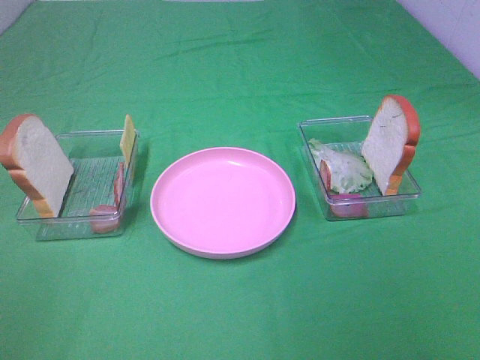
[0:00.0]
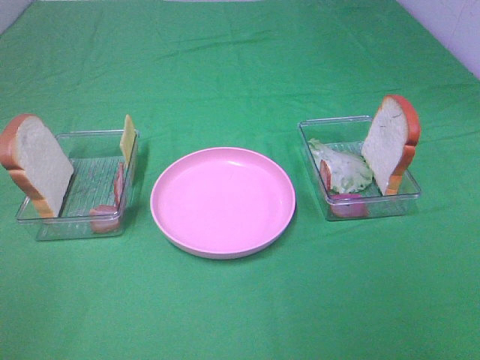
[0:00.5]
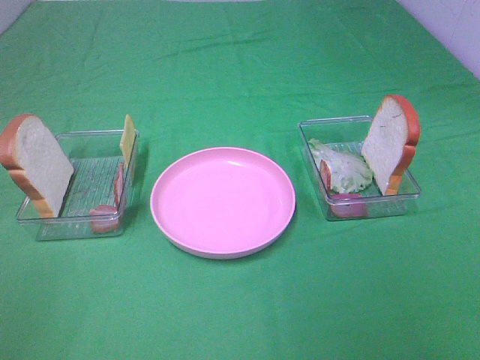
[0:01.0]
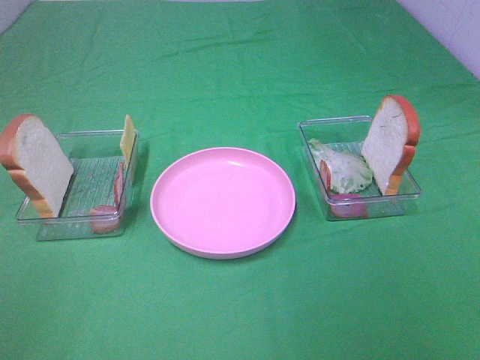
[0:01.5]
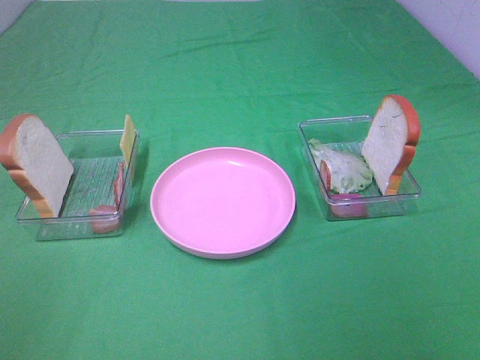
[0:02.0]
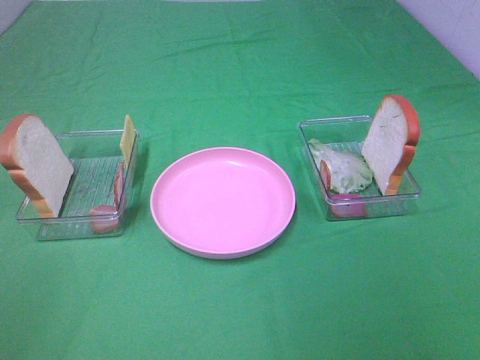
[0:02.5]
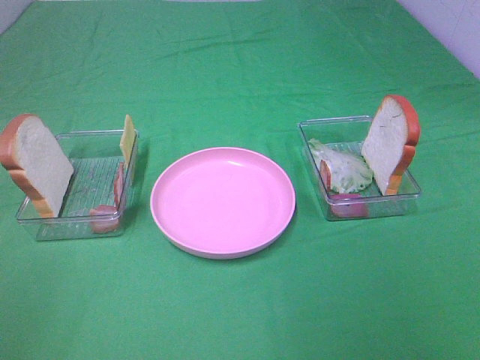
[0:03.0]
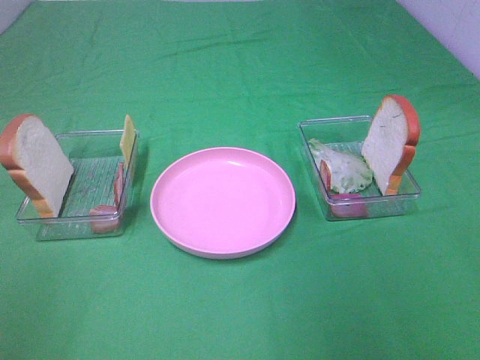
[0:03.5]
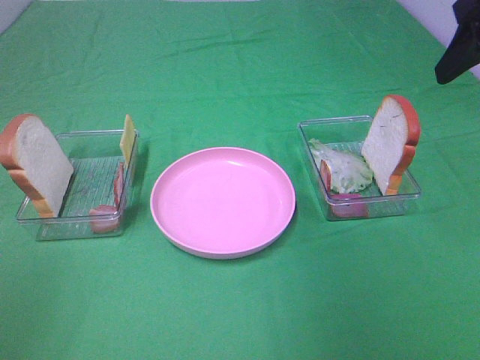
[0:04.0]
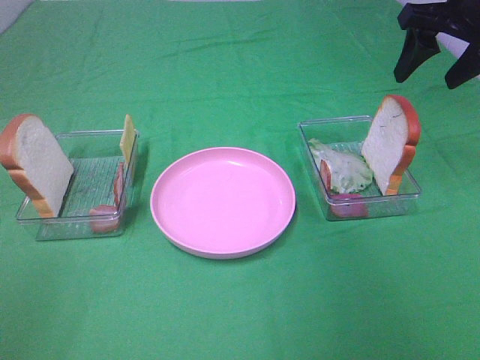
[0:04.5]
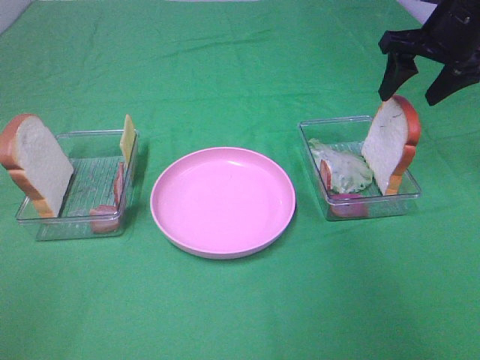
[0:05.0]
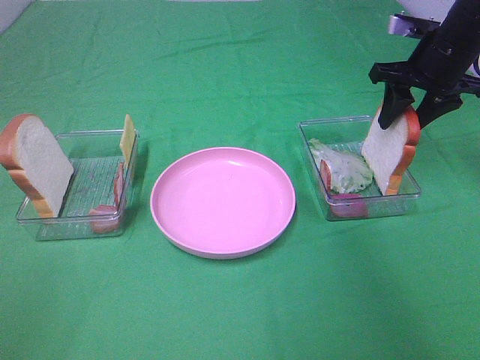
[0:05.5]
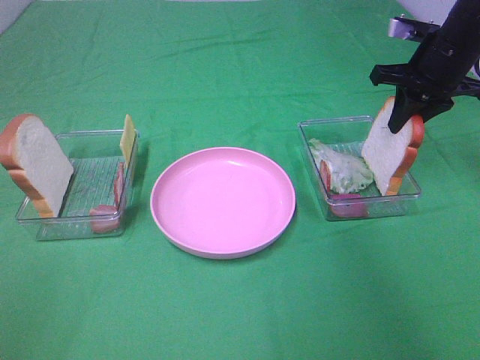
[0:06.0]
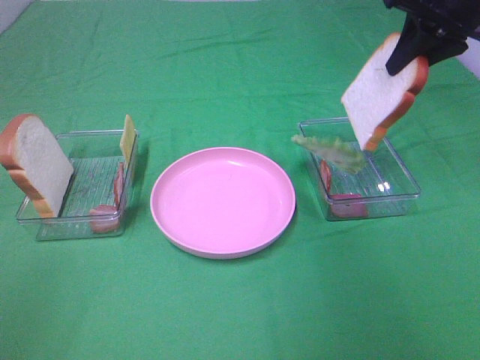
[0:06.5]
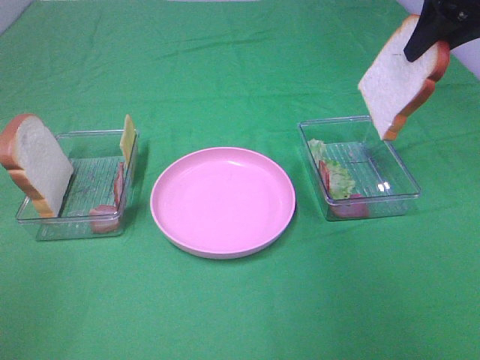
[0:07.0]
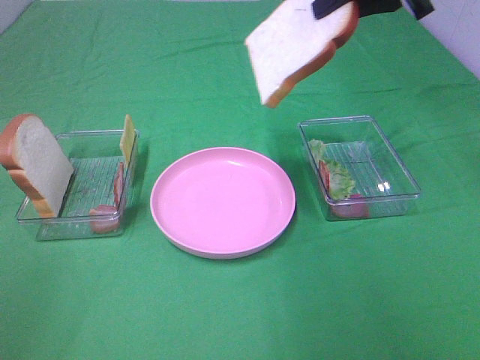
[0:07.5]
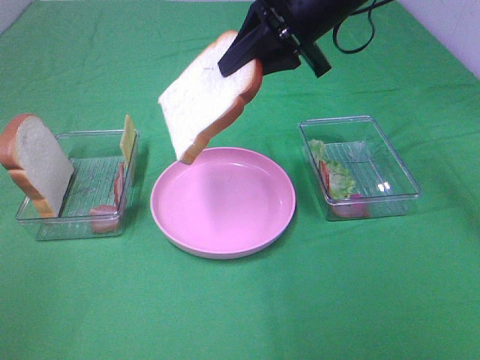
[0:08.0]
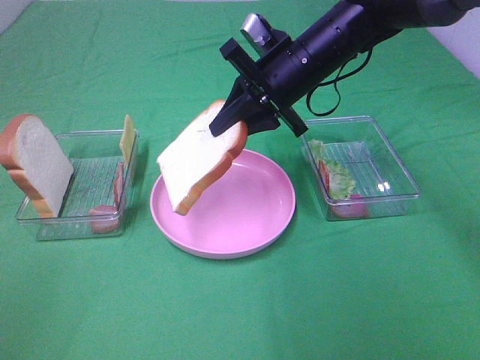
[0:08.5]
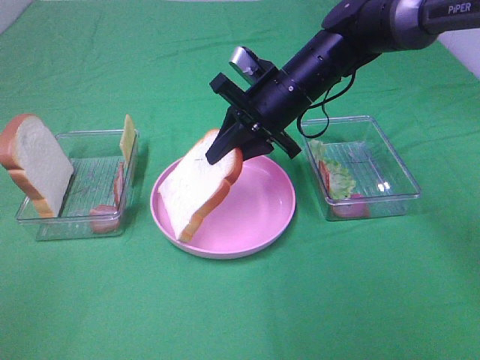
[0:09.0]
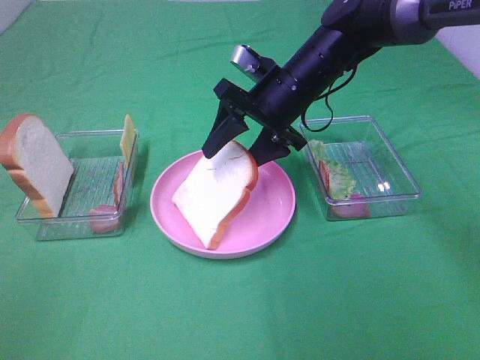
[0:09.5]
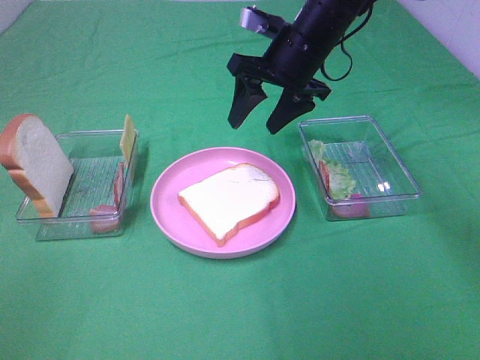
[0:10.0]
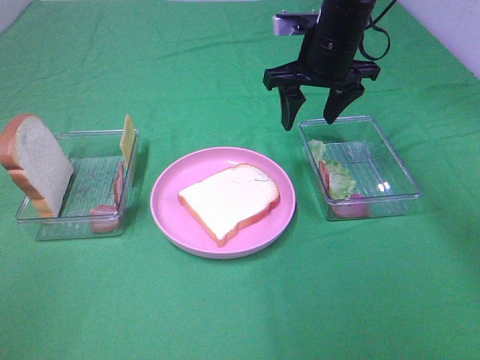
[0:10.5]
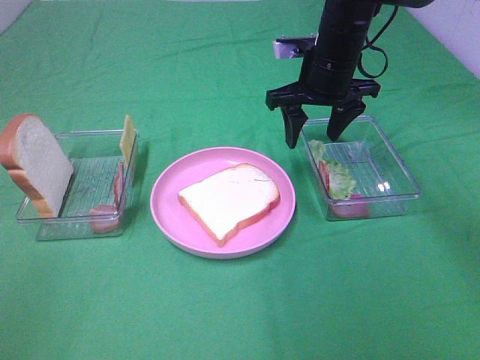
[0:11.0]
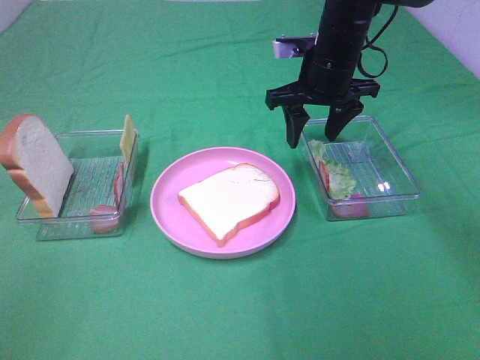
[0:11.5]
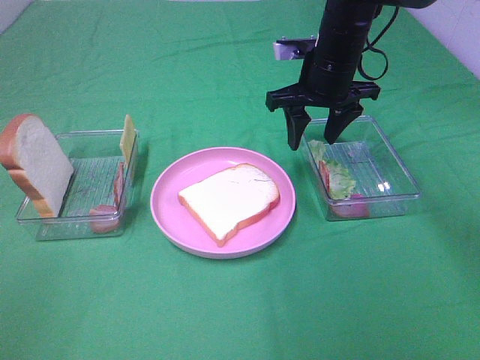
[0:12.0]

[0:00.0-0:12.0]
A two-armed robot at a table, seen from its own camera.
Task of the whole recording: Make sandwiches.
Step, 0:00.0 to 0:06.0: Right hand:grab the bread slice.
Step, 0:06.5 to 0:09.5: Right hand:place the bread slice on the plate.
0:00.0 to 0:02.0: Both grippers stay about where they are.
0:02.0 to 0:04.0: The right gripper shifts some 30 cm forward.
0:04.0 to 0:06.0: The right gripper travels forward and downward by about 20 cm, and closes.
0:06.0 to 0:08.0: The right gripper heads to the left and upward, covering some 20 cm.
0:08.0 to 0:10.0: The right gripper goes some 10 cm downward and forward, and opens.

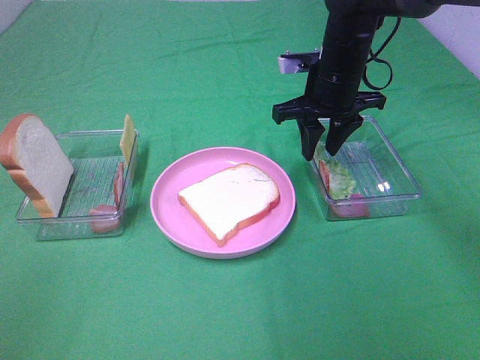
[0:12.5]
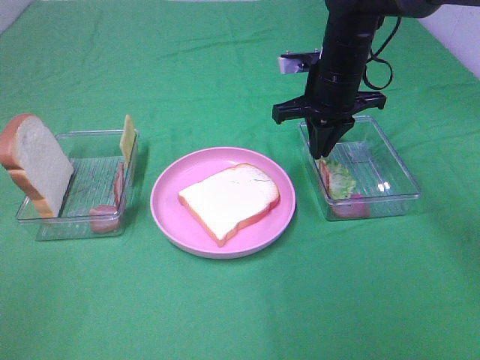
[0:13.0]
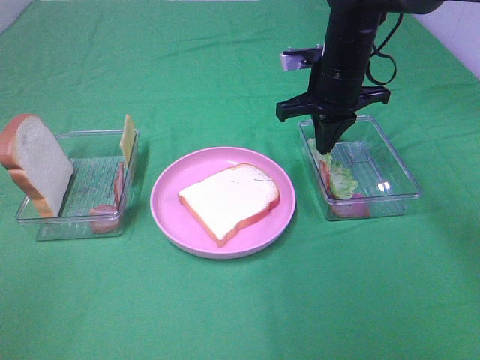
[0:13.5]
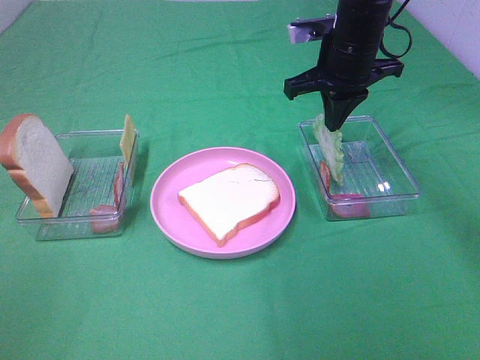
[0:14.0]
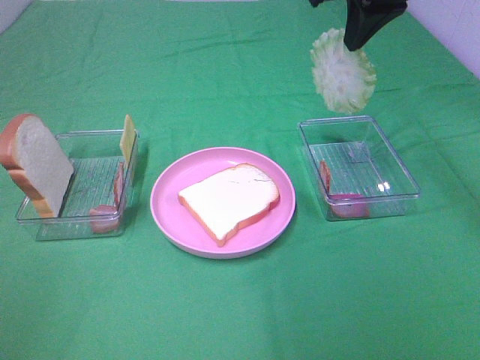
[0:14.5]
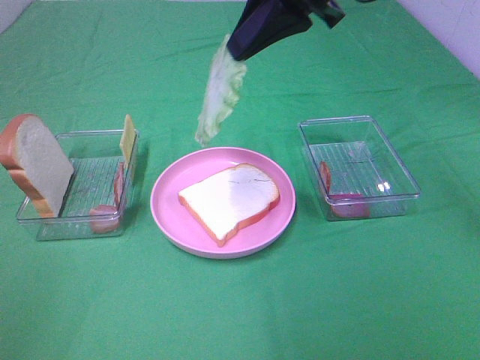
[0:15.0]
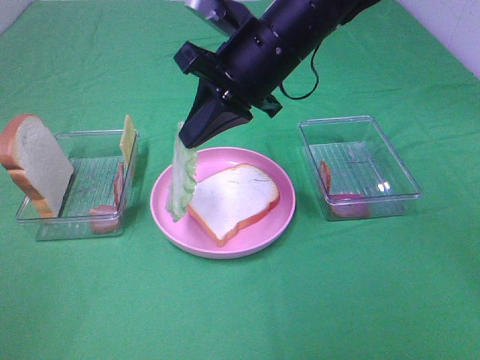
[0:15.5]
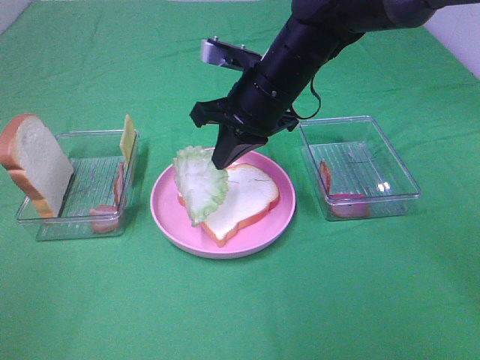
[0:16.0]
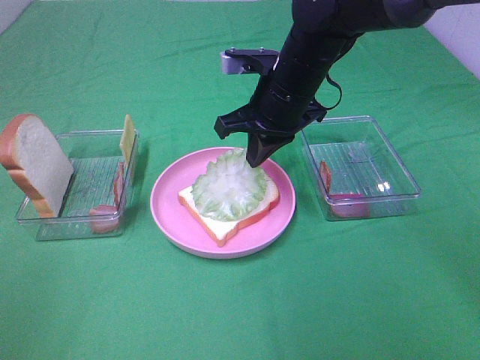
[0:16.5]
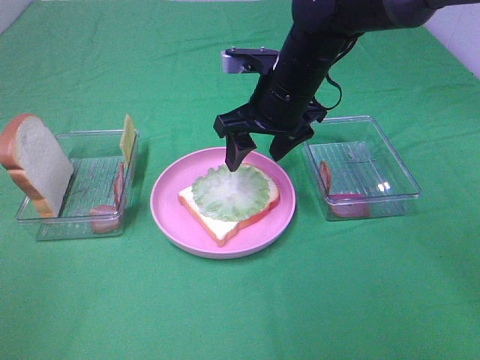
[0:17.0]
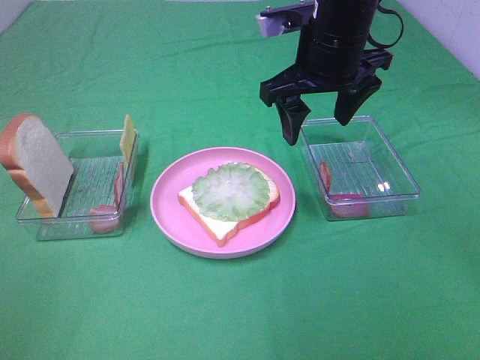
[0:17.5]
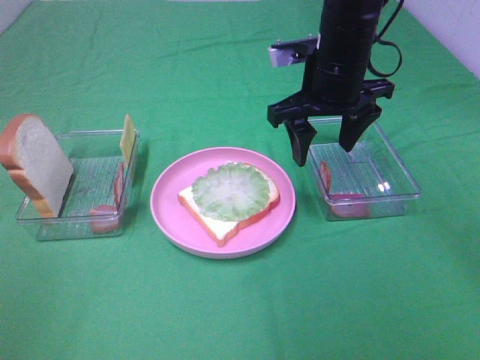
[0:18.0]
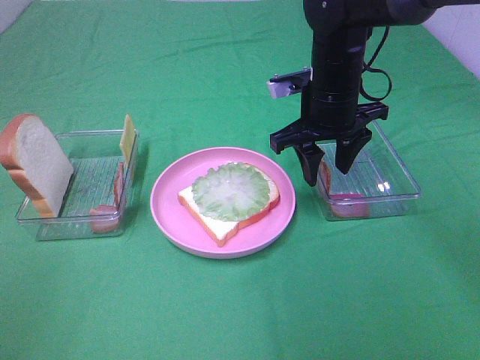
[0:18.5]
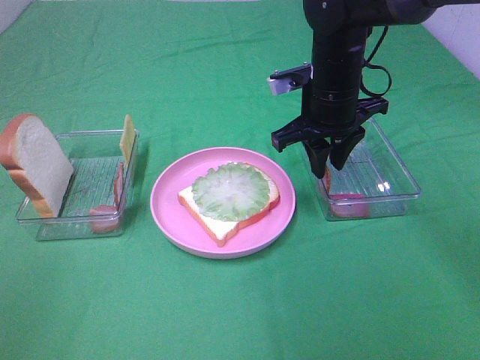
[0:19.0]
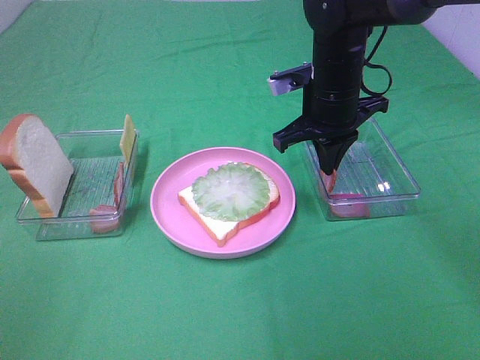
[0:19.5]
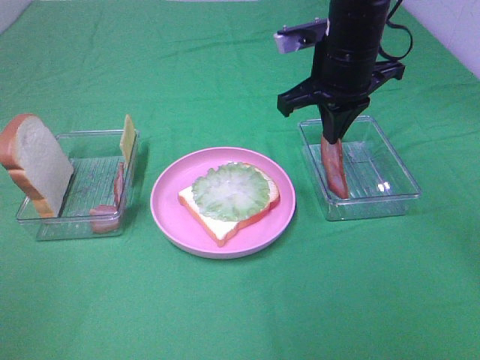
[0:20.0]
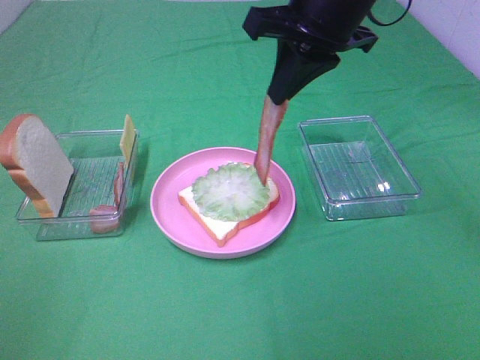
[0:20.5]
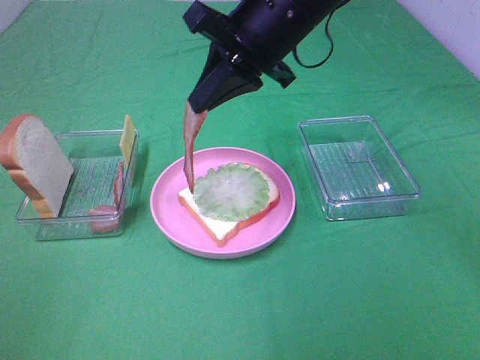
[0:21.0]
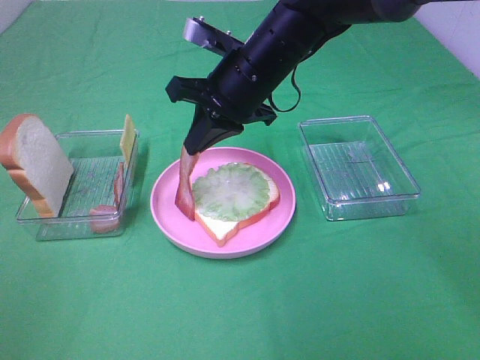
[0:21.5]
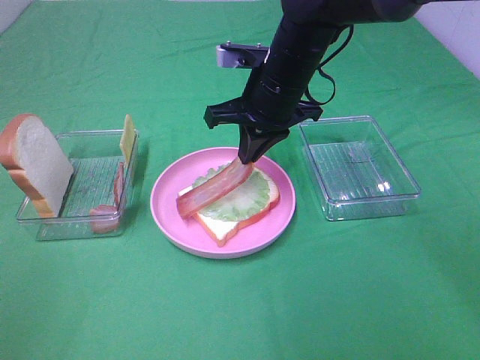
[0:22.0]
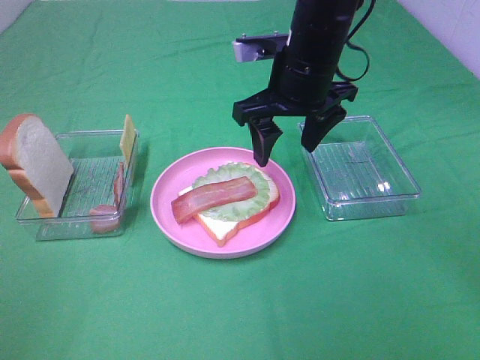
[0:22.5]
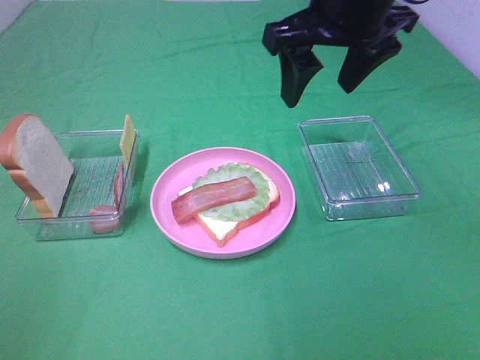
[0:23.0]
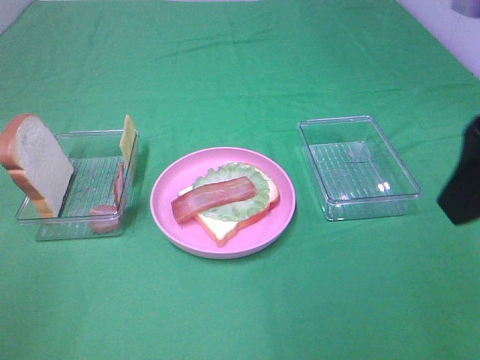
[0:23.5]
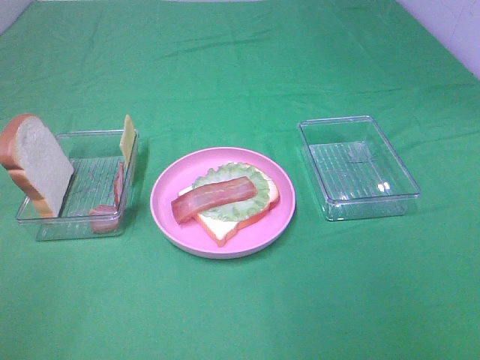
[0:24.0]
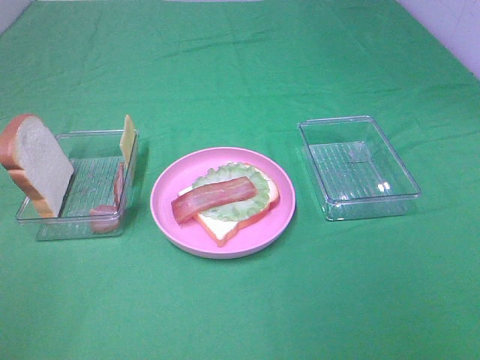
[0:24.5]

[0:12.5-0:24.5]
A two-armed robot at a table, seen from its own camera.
Task of the whole recording: Make sandwiches.
Step, 0:13.5 to 0:16.5: Right hand:place the lettuce slice on the bread slice.
0:12.5 to 0:14.5: The right gripper shifts about 15 cm upward, and closes.
0:14.5 to 0:16.5: The right gripper travels downward and to the left by roughly 20 cm.
0:16.5 to 0:18.5: The right gripper reaches approximately 5 cm upward, then returns, and opens.
0:18.5 to 0:20.5: The right gripper travels upward by some 15 cm, and closes up.
0:20.5 to 0:22.5: The right gripper moves downward, approximately 10 cm, and opens up.
0:22.5 to 0:24.5: The right gripper heads backward and to the right, covering roughly 40 cm.

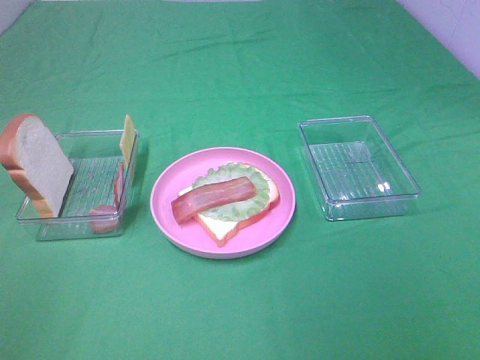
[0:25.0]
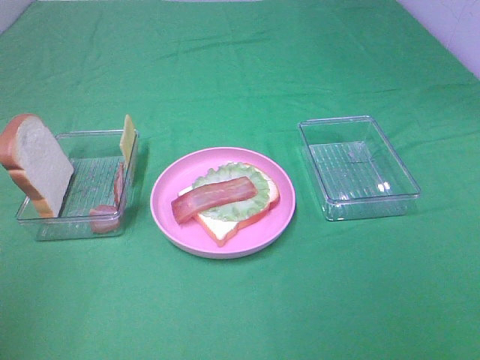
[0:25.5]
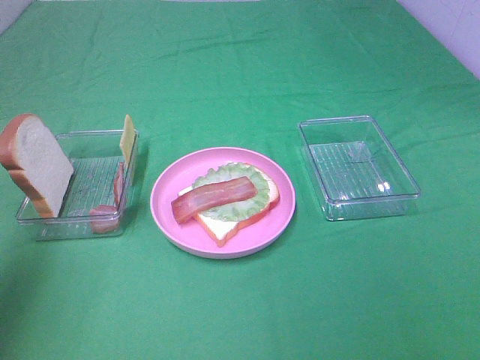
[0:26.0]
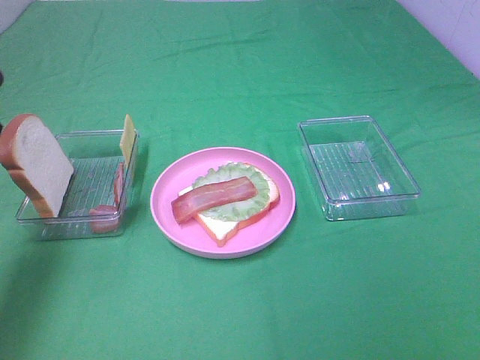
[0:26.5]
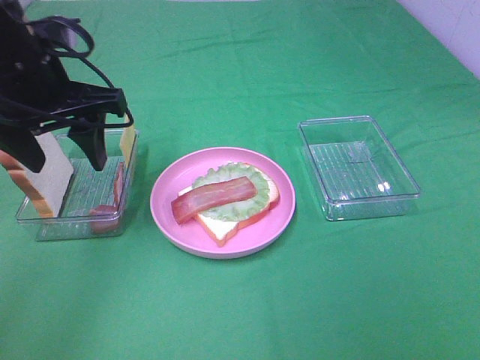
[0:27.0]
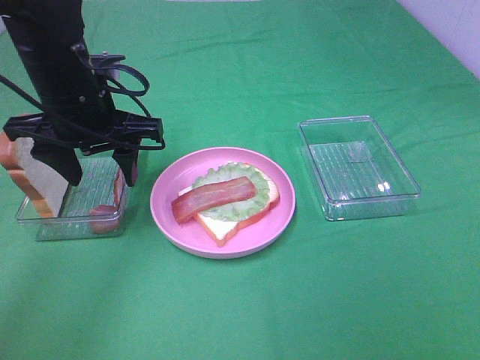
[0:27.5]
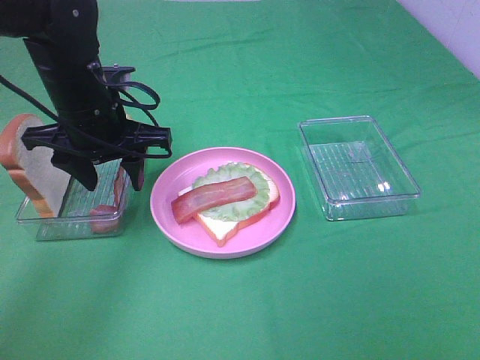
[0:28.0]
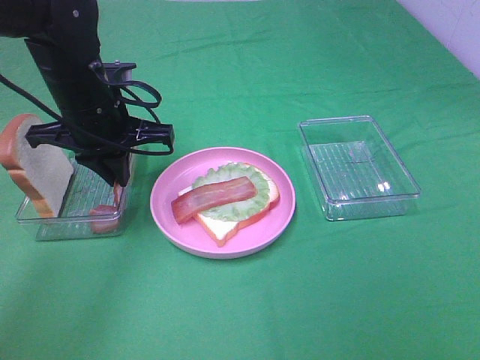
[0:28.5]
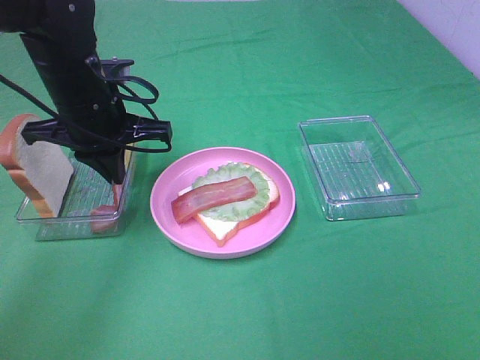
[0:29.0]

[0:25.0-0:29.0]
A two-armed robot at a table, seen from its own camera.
Task of the whole recording: Make sandwiches.
Step, 0:25.0 to 0:28.5: Left hand:grab the bacon.
0:25.0 to 0:27.0: The left gripper travels forward and to the right by roughly 35 cm.
0:27.0 to 0:29.0: The left gripper is displaced downward by roughly 5 cm, and closes.
